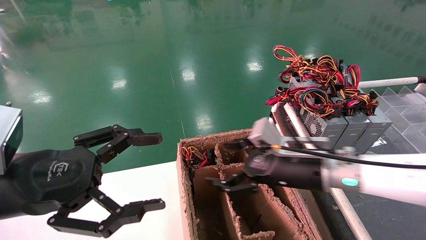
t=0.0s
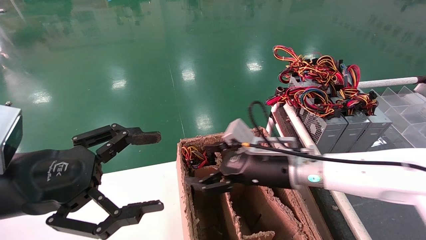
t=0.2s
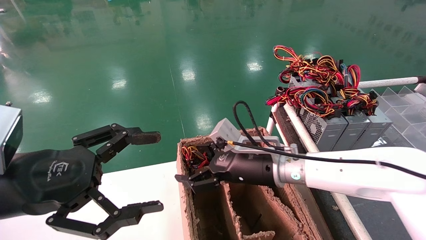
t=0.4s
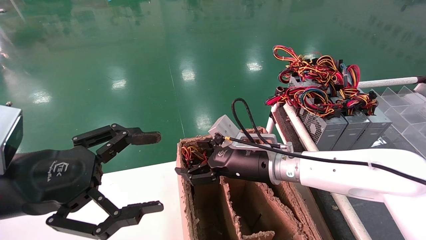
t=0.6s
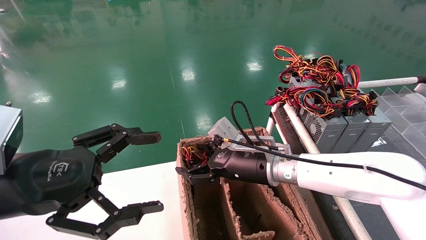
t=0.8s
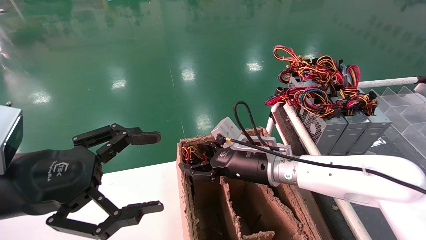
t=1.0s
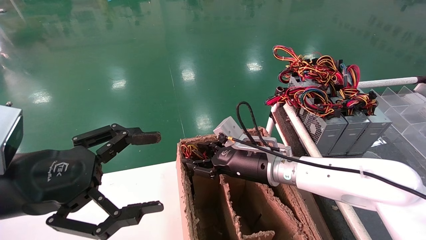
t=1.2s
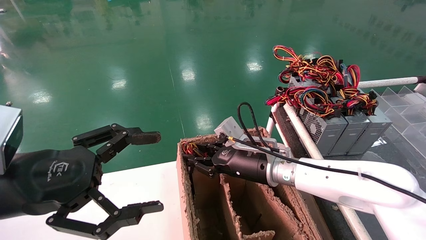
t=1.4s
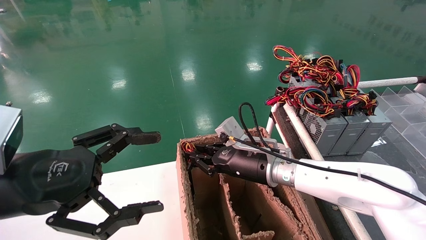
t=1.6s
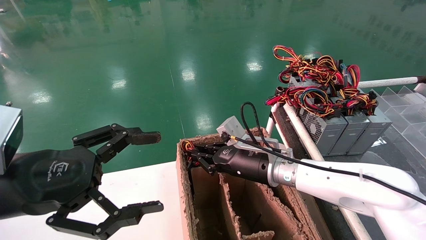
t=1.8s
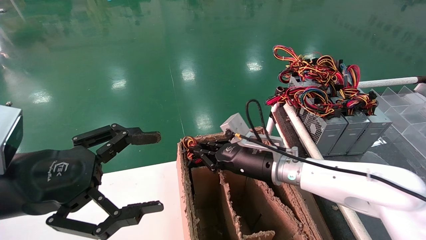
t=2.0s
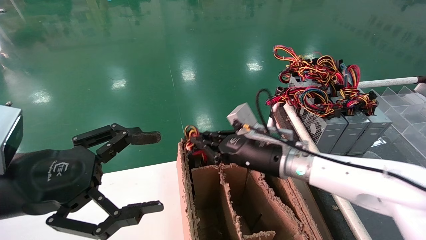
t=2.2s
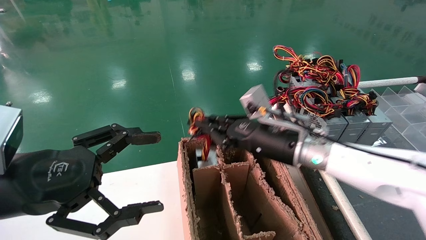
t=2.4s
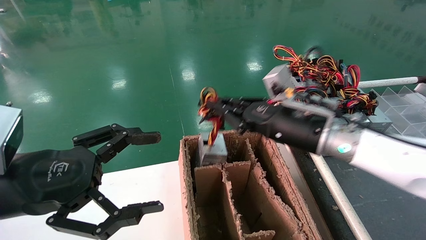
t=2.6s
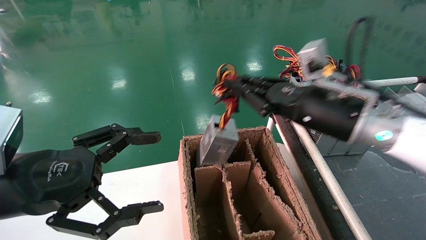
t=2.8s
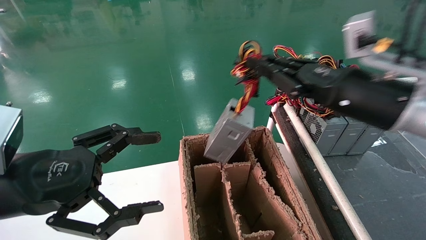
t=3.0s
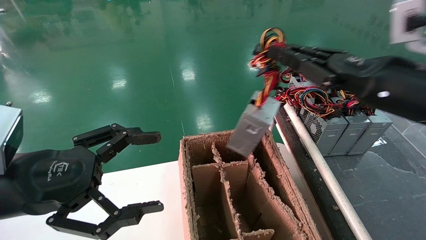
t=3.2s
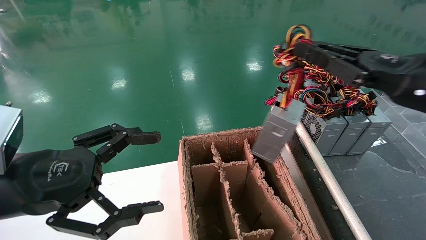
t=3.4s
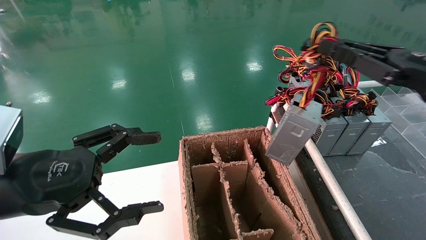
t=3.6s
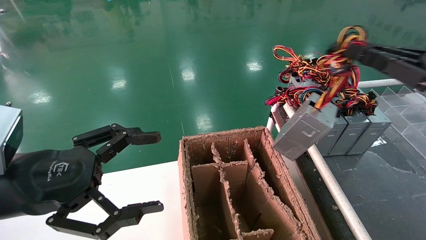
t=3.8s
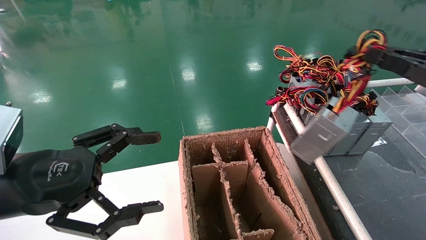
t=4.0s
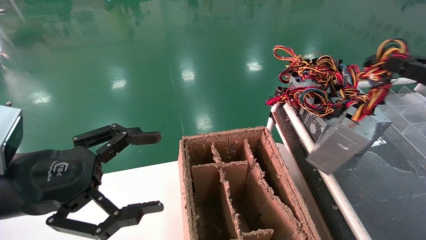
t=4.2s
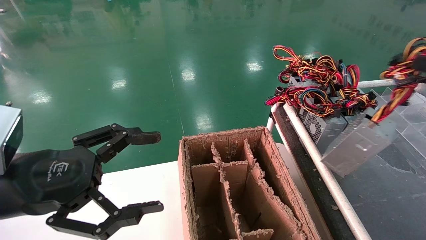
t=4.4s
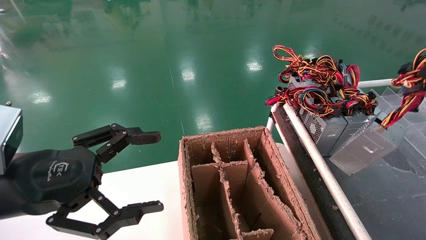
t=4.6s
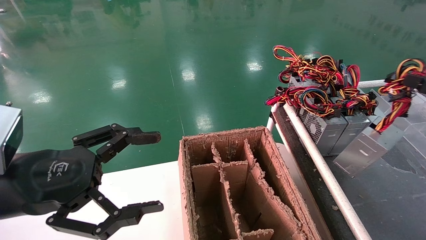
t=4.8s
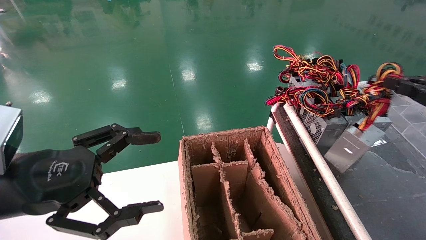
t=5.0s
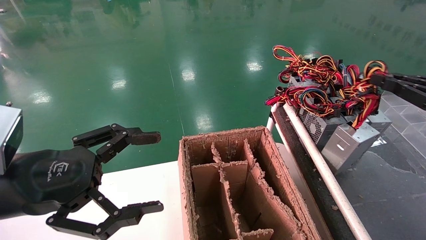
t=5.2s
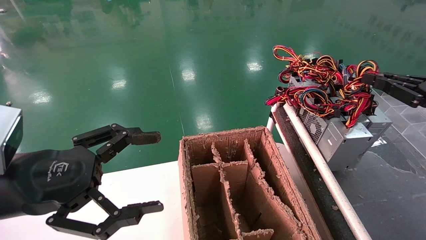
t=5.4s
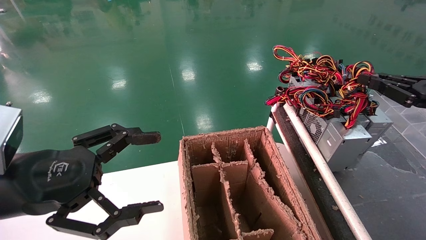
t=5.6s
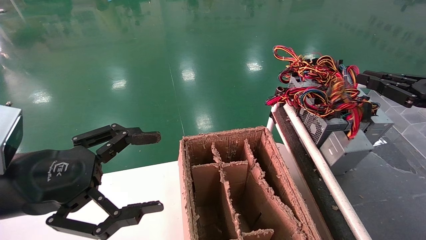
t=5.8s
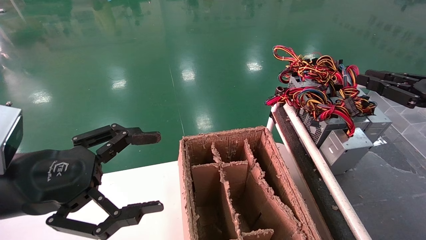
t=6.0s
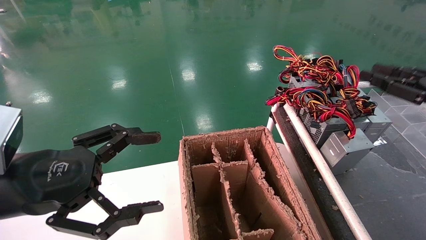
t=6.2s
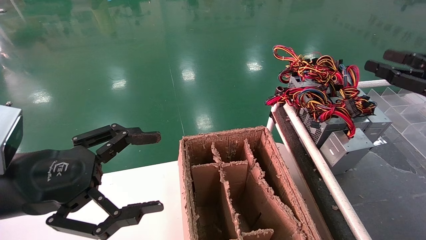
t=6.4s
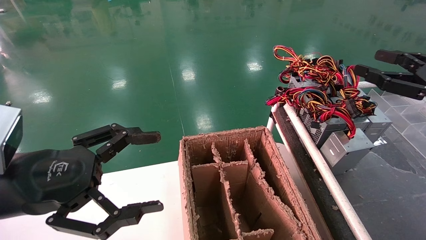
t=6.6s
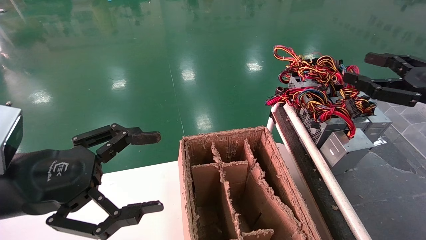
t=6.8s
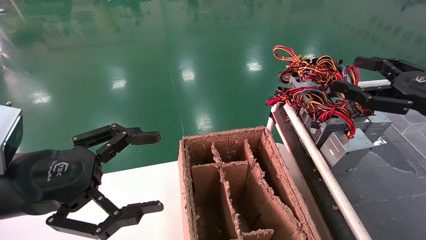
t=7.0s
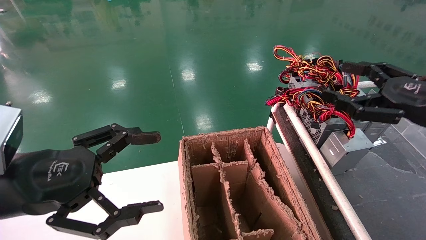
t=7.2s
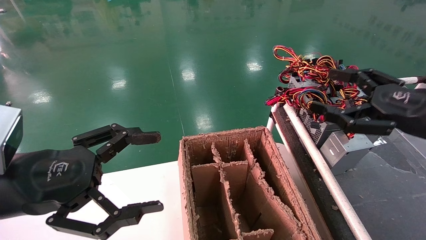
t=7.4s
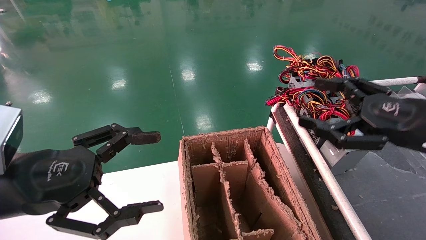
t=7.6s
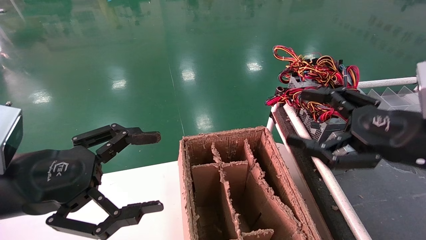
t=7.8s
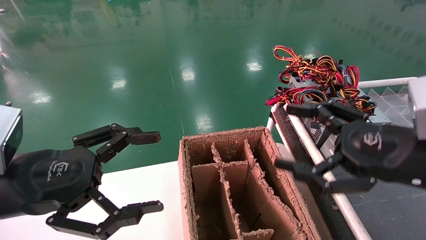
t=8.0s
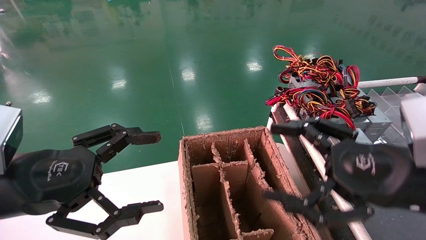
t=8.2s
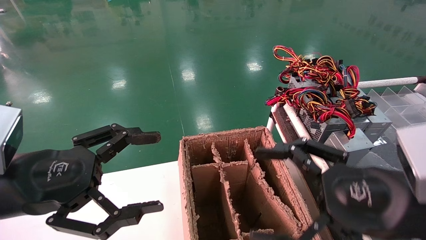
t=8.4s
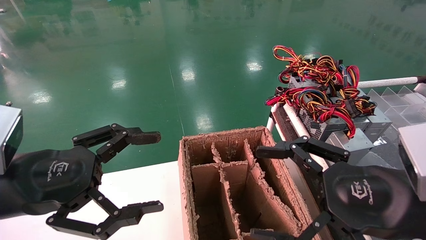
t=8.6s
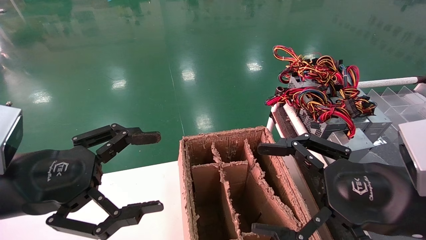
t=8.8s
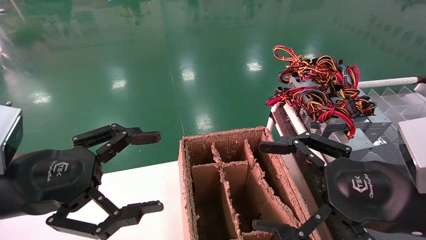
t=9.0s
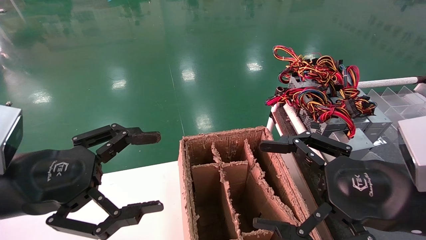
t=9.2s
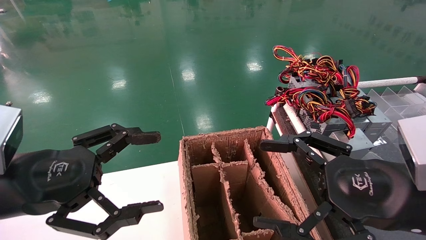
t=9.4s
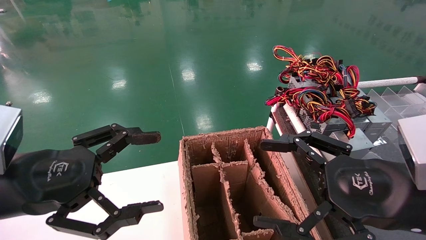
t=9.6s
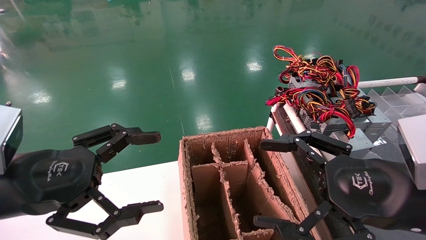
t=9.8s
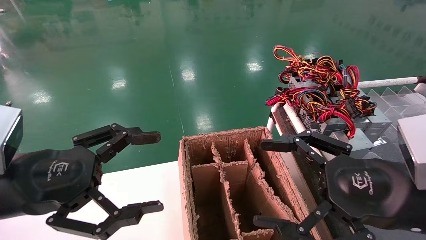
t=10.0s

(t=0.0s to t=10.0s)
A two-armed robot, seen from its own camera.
Step, t=0.0s - t=1.8s: Grab and lift the power supply from the large box.
Step, t=2.0s - t=5.8s: Place the power supply on the operating table.
t=0.0s - t=1.4s: The right gripper is displaced to the left and forward by about 10 cm, and closes its fingers.
t=1.4s - t=2.8s: The right gripper travels upward, to the right and backward by approximately 20 cm, and closes up.
t=2.8s - t=4.2s: The right gripper is displaced to the right and backward by approximately 25 cm.
t=4.2s - t=5.8s: The right gripper is displaced forward by about 10 cm.
t=5.8s - t=7.2s: The right gripper shifts some 5 cm to the left, and opens up.
t=7.2s - t=8.6s: The right gripper travels to the left, backward and downward by about 15 cm.
t=8.6s - t=10.0s: Both grippers stay put.

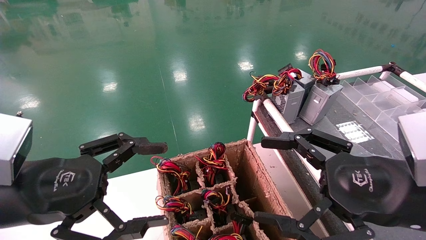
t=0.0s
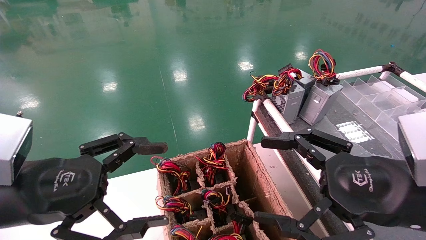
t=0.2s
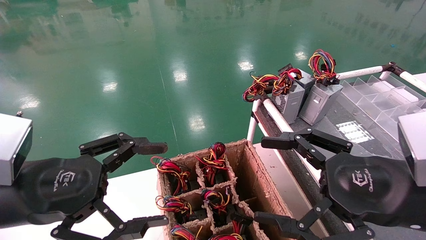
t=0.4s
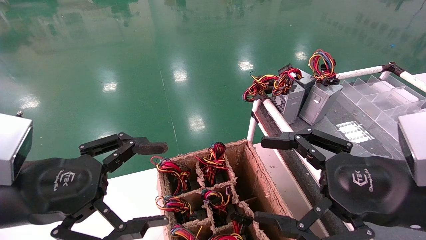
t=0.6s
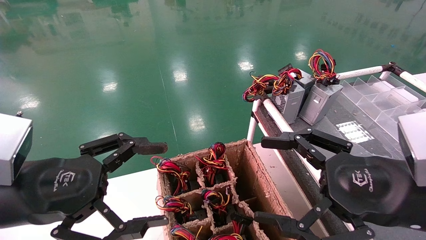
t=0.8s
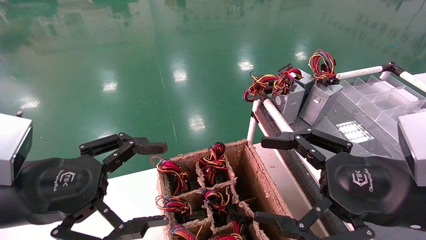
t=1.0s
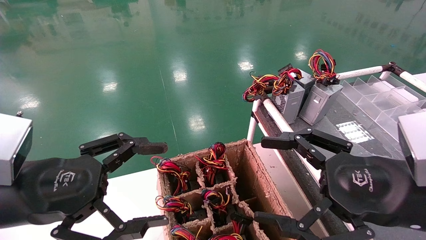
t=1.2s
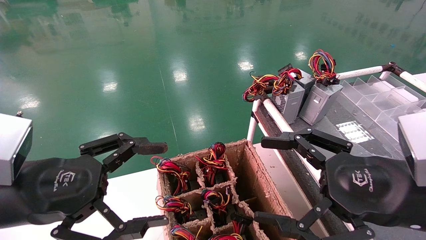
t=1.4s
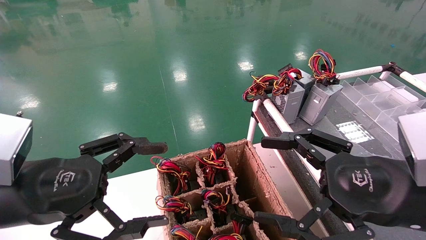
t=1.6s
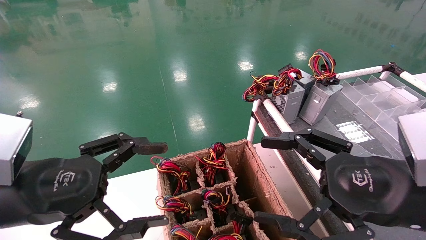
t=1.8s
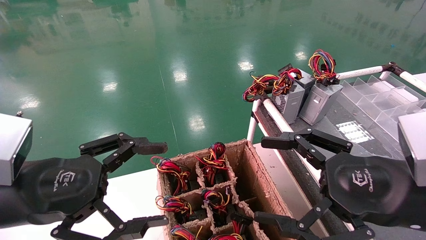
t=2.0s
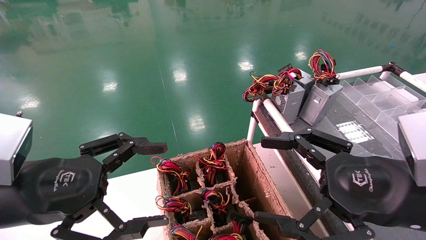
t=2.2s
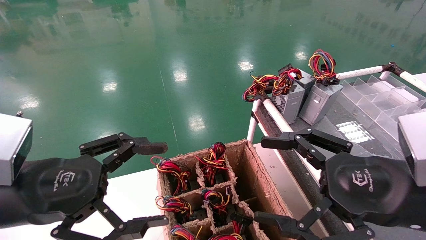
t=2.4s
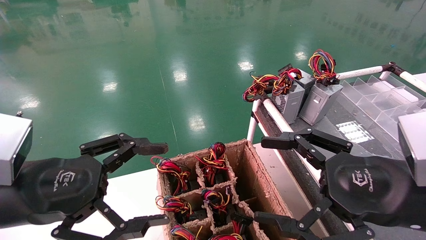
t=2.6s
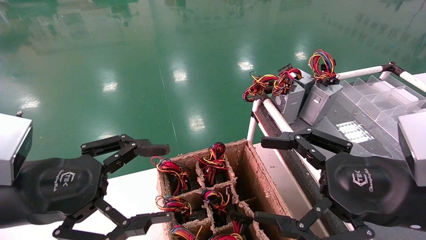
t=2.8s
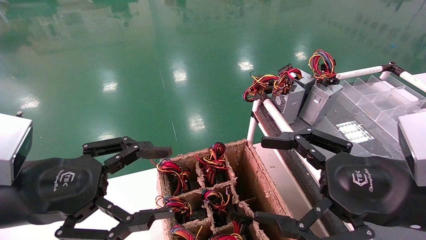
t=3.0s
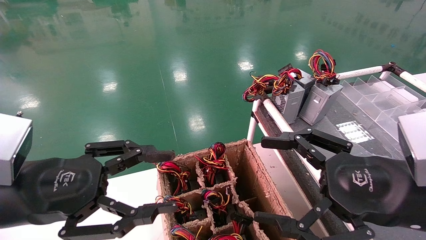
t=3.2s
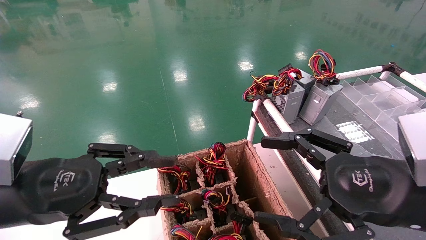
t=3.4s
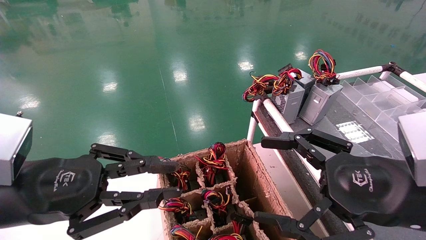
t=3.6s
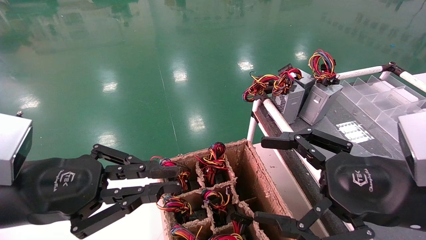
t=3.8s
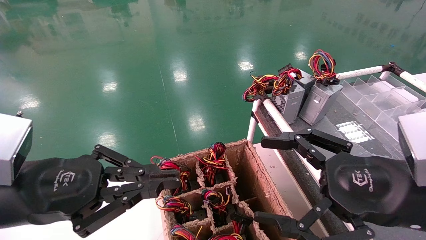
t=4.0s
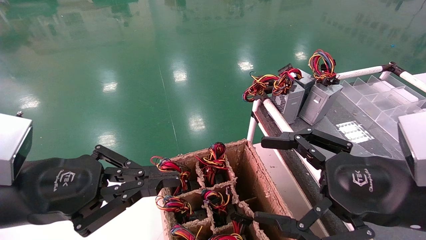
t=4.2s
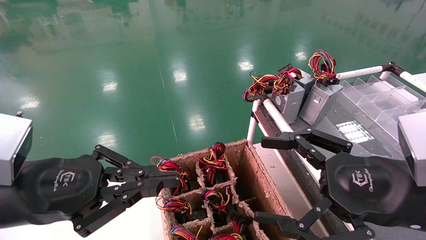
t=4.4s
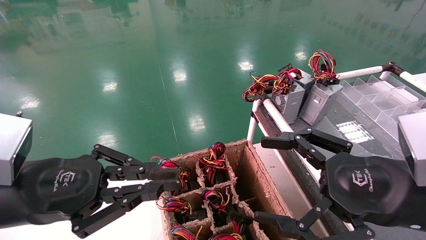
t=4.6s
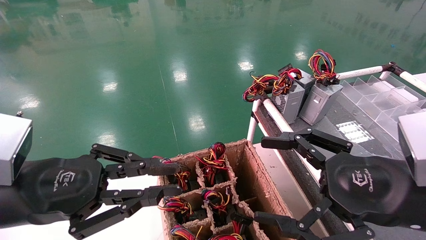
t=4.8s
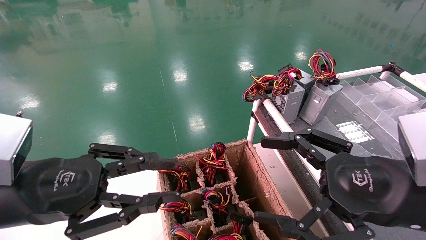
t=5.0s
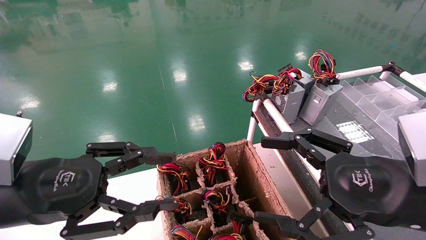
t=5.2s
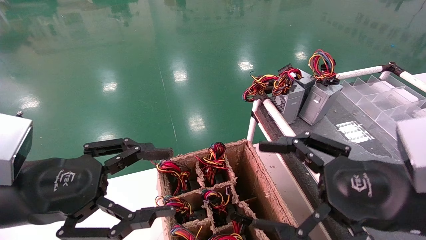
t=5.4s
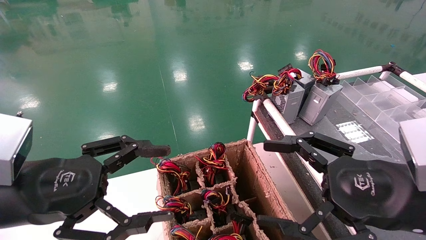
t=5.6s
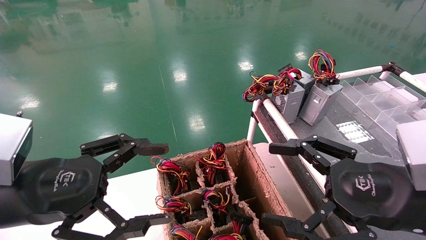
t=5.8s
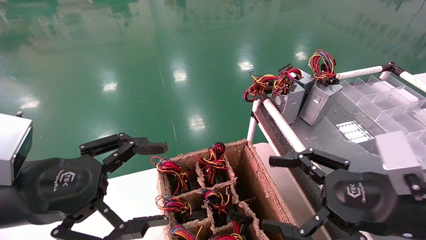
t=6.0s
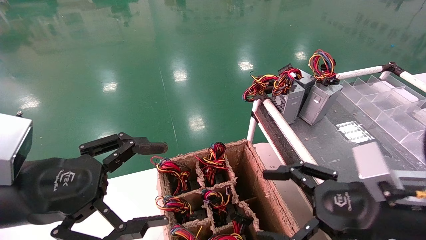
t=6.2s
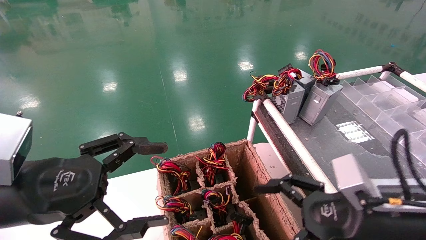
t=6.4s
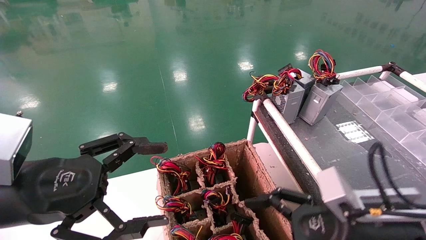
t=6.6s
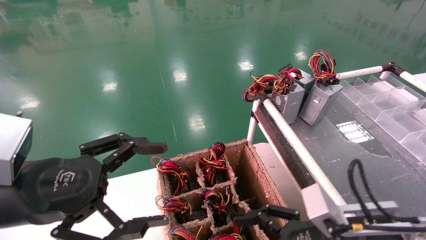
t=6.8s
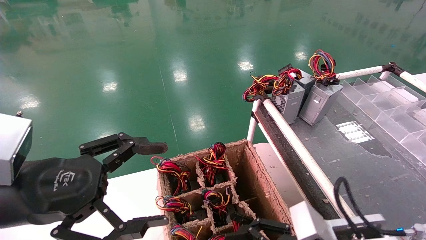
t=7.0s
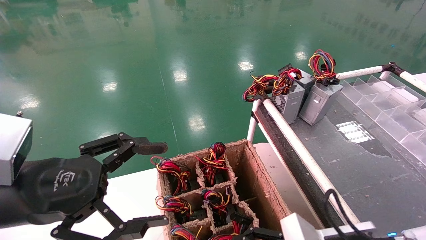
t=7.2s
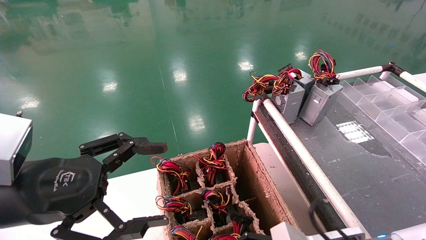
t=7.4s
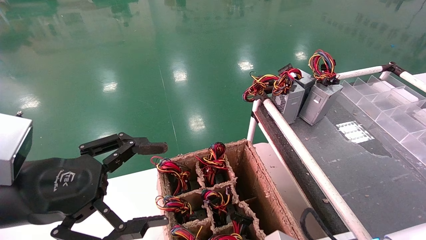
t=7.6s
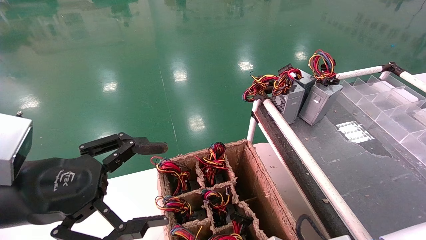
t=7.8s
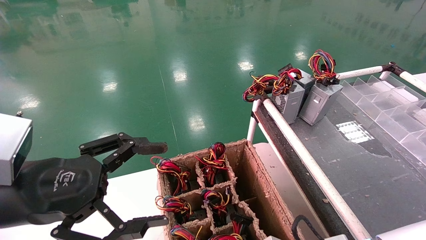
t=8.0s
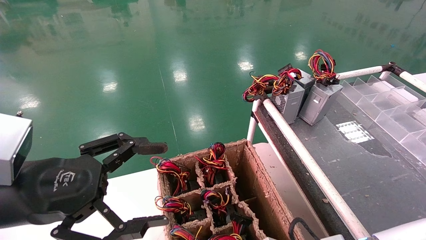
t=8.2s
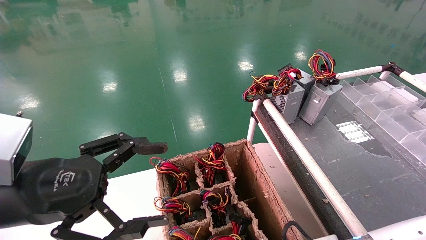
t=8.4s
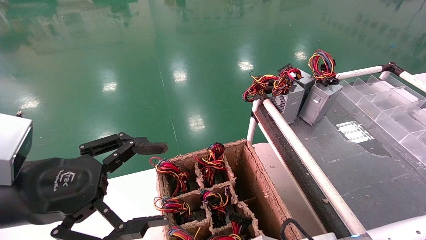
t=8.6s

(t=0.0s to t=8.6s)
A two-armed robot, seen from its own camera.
t=0.0s - t=2.8s: Both grippers stay about where they are.
t=2.8s - t=4.4s: The left gripper closes up.
t=4.4s - t=5.8s: The left gripper opens up.
t=5.8s - t=7.2s: The right gripper heads downward and to the left, covering some 15 cm.
t=7.2s - t=8.6s: The right gripper closes.
